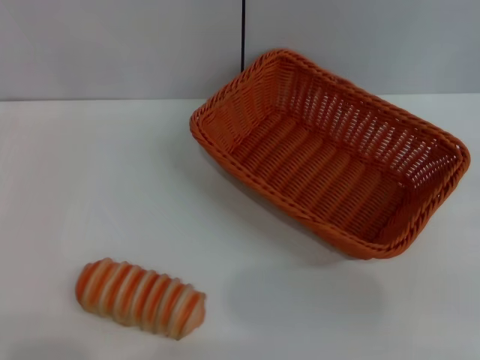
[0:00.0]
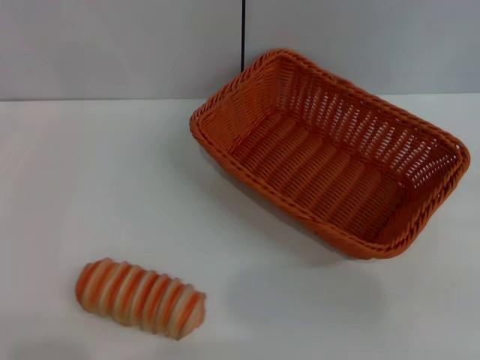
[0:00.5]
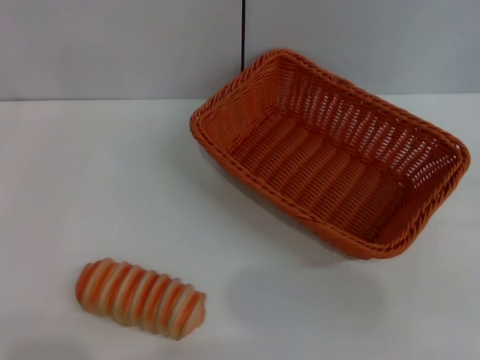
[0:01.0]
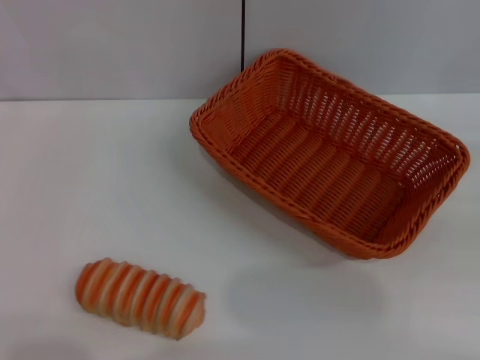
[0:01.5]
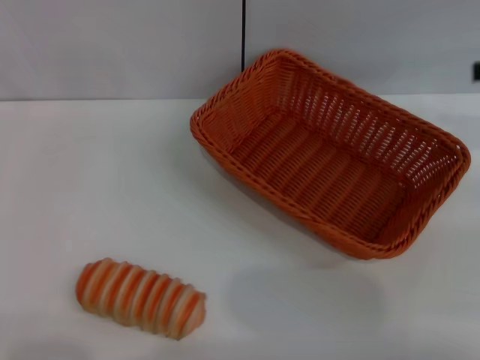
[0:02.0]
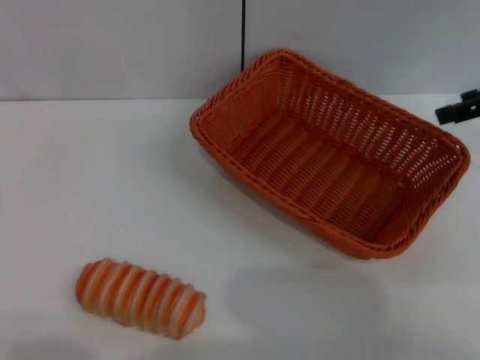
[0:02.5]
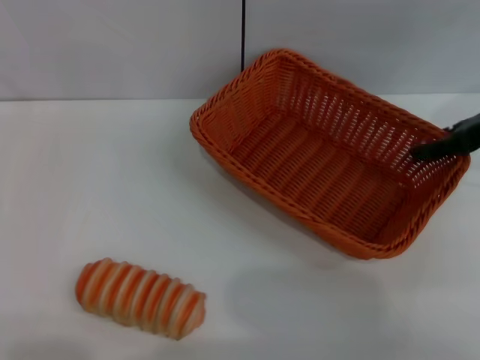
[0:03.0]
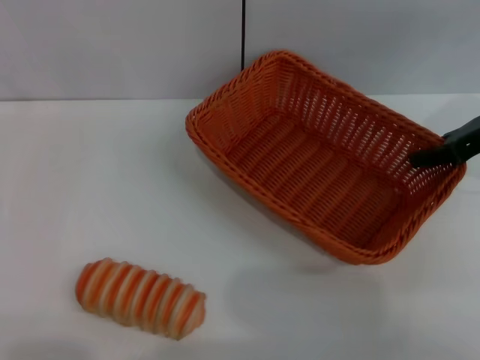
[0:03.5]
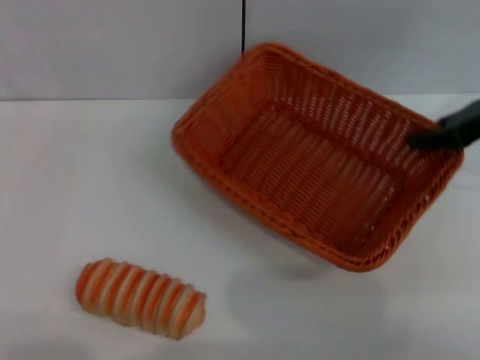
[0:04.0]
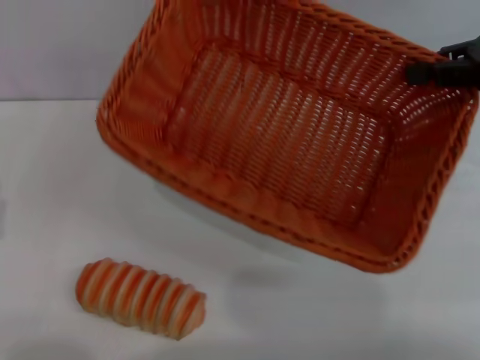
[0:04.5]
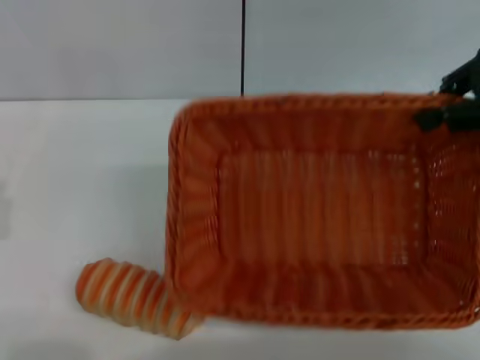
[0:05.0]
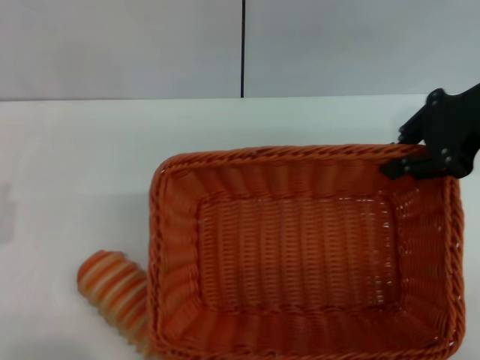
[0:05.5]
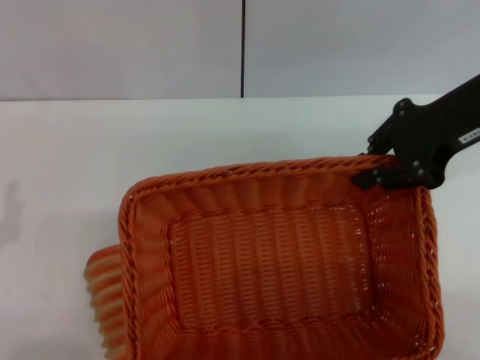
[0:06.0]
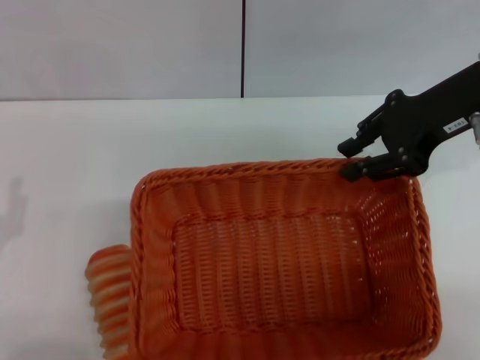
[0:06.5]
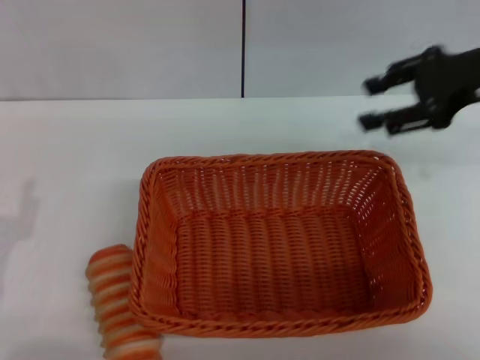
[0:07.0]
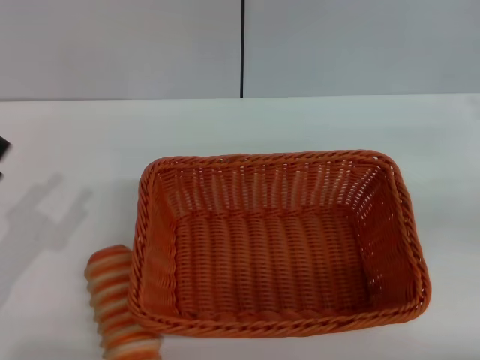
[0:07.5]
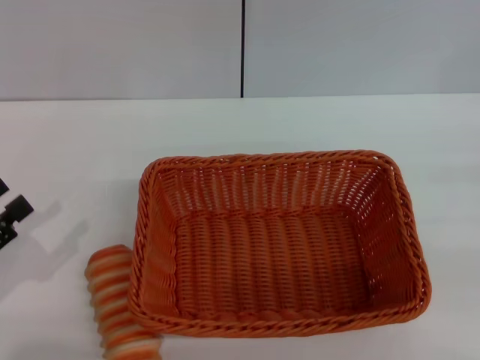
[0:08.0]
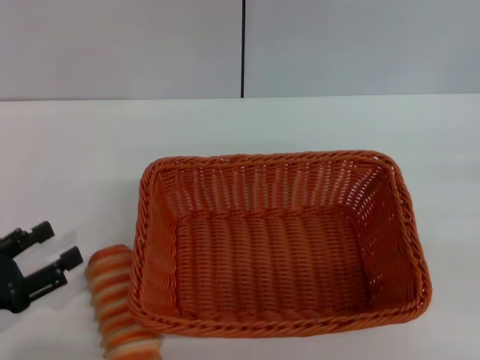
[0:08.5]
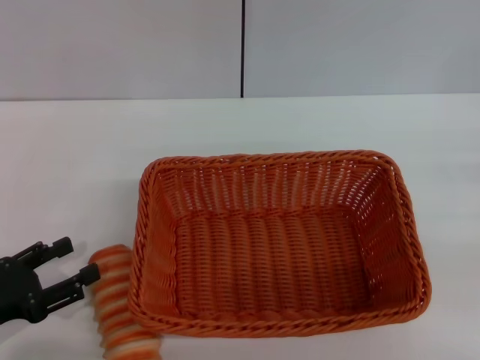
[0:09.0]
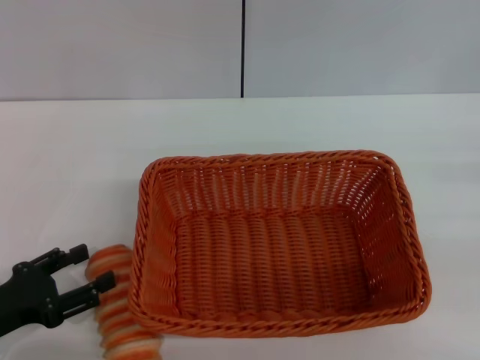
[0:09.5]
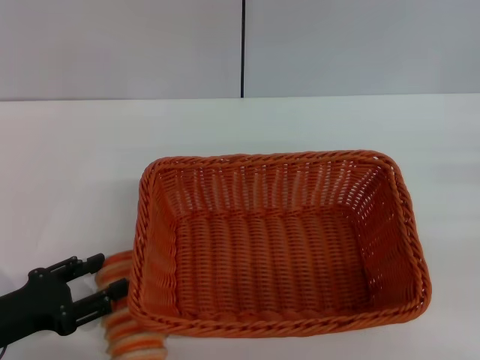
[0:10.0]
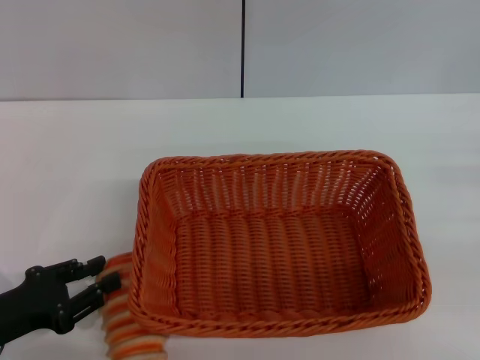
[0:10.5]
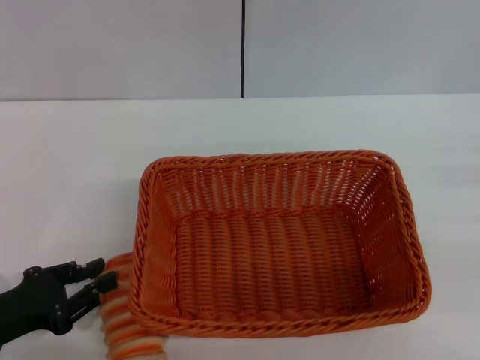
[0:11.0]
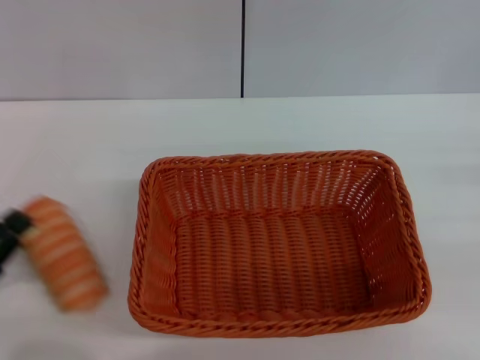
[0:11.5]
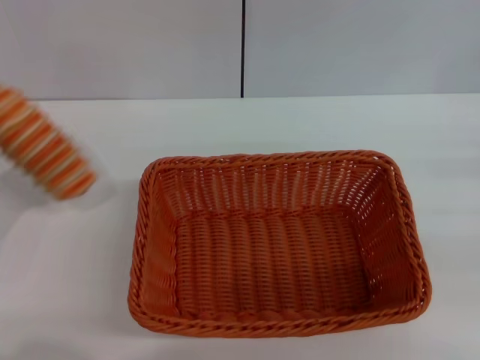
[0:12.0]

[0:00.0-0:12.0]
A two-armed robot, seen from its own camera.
Step, 0:00.0 to 0:04.0: Pick up the light basket with the right gripper.
Step, 0:04.5 to 0:06.5: Place the light basket in the center of view with the right gripper.
Step, 0:07.0 to 0:12.0: Pick up the long bread with the left gripper.
0:02.0 to 0:04.0: The right gripper shifts roughly 10 cm to the left and downward, and closes.
0:04.0 to 0:06.0: The right gripper goes about 5 cm to the left.
0:06.0 to 0:08.0: The left gripper moves to the left, approximately 5 cm; the right gripper heads to the right, backward and downward, covering some 25 cm, and opens its fingers.
0:08.0 to 0:10.0: The left gripper moves approximately 5 cm.
0:10.0 to 0:12.0: The left gripper moves some 5 cm, and closes up.

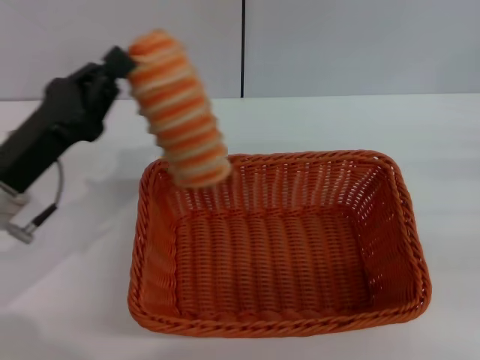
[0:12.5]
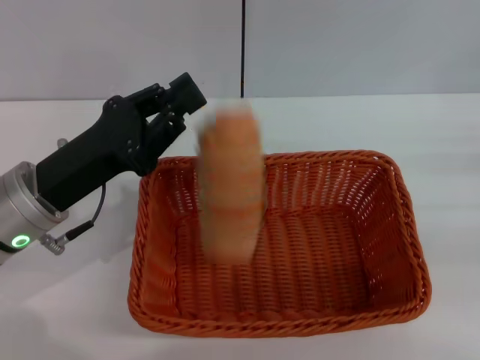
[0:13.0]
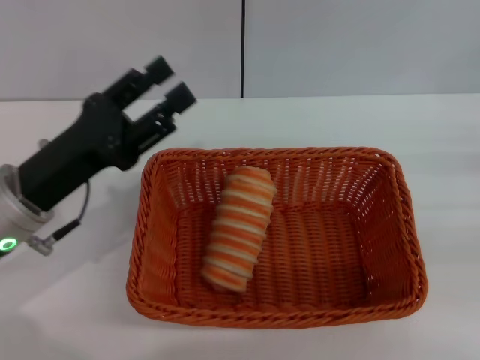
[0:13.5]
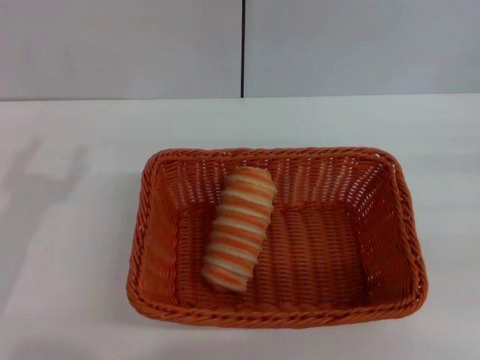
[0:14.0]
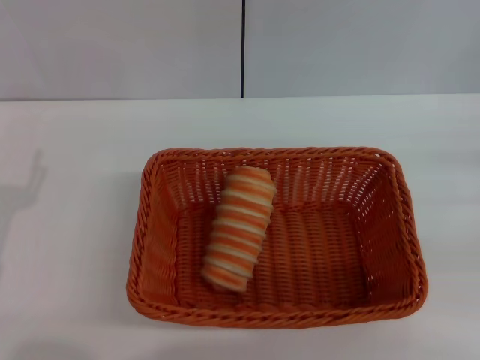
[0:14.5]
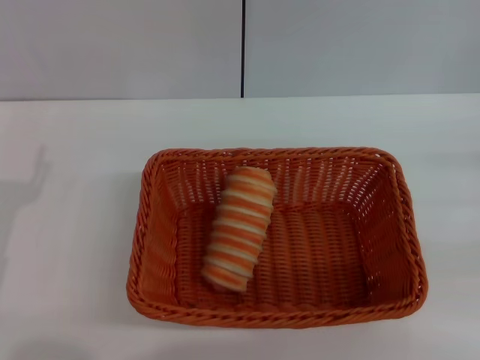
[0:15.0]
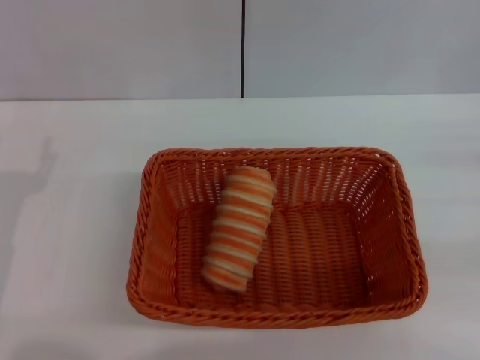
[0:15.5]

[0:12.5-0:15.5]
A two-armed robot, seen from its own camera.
0:12.5 to 0:14.0: The left gripper travels backward by approximately 5 cm, and opens.

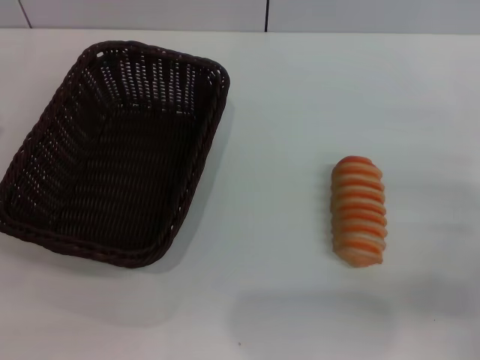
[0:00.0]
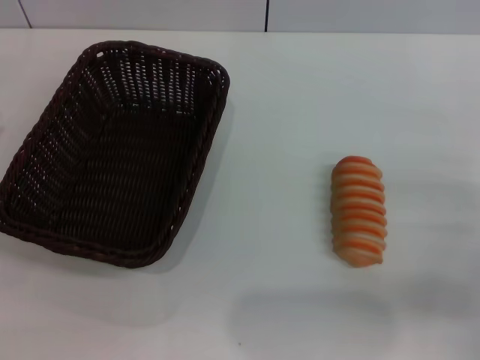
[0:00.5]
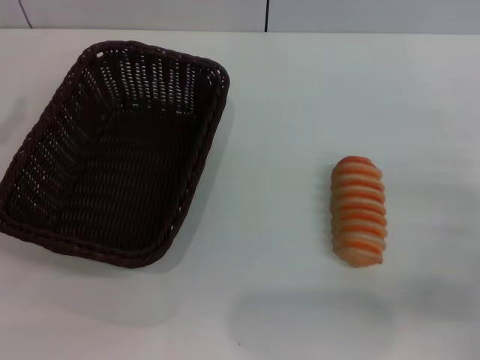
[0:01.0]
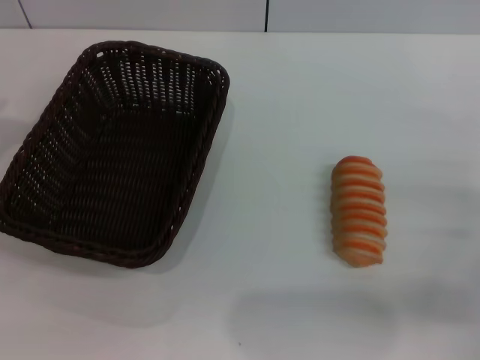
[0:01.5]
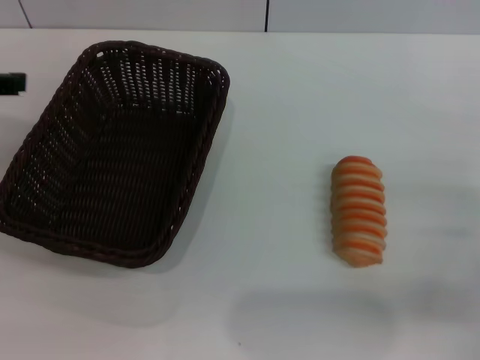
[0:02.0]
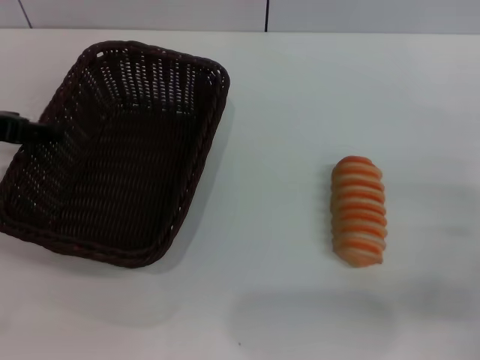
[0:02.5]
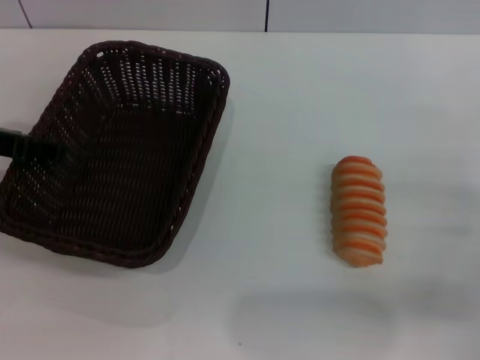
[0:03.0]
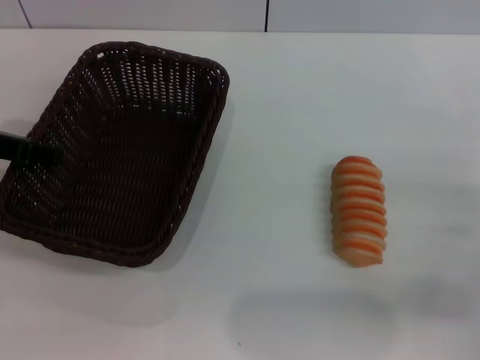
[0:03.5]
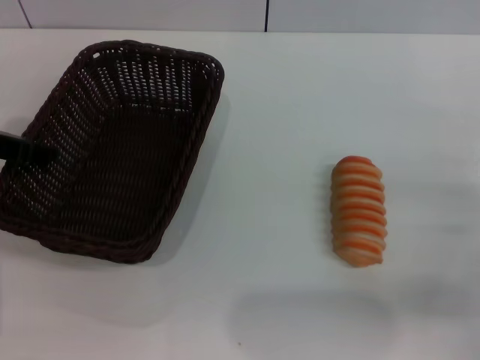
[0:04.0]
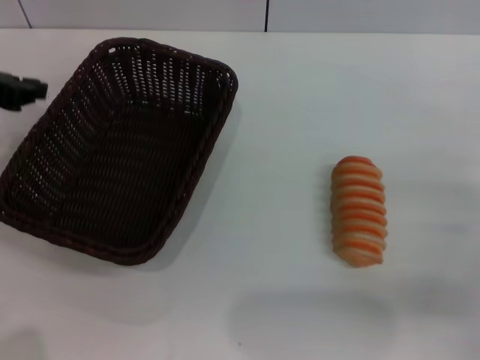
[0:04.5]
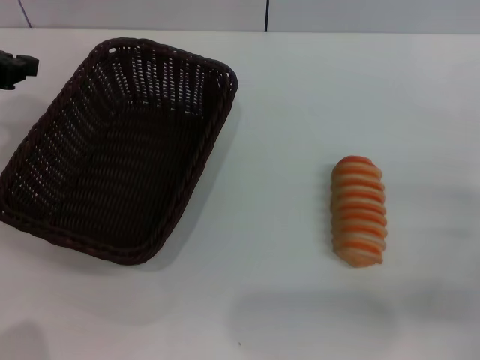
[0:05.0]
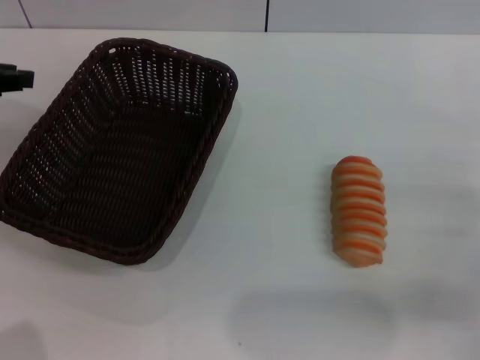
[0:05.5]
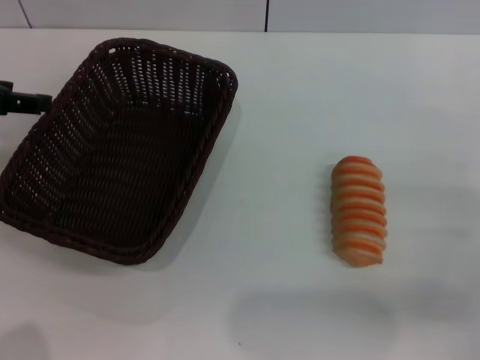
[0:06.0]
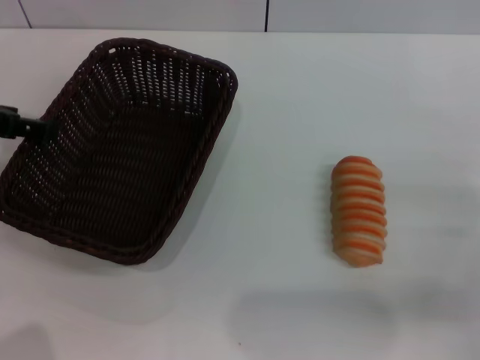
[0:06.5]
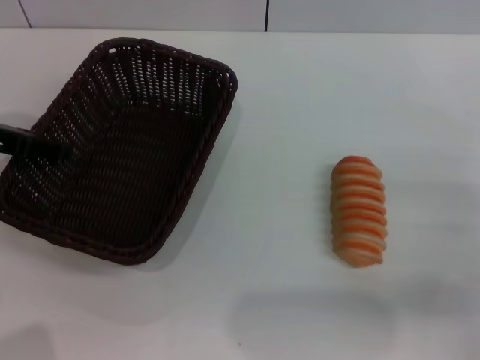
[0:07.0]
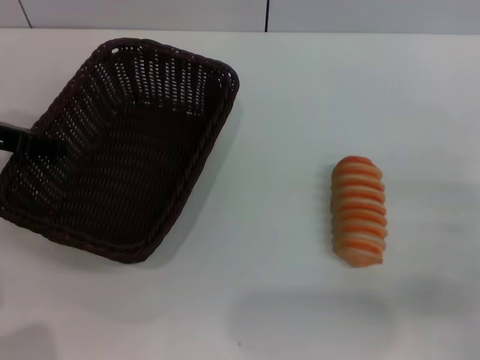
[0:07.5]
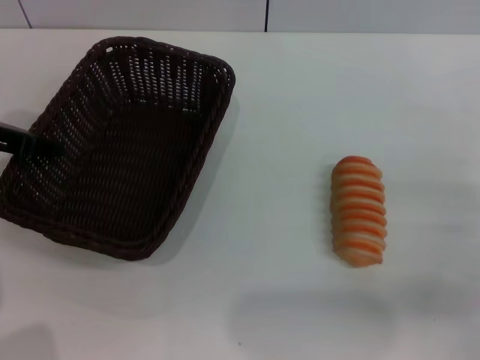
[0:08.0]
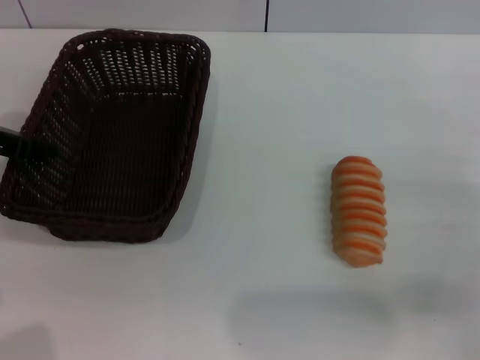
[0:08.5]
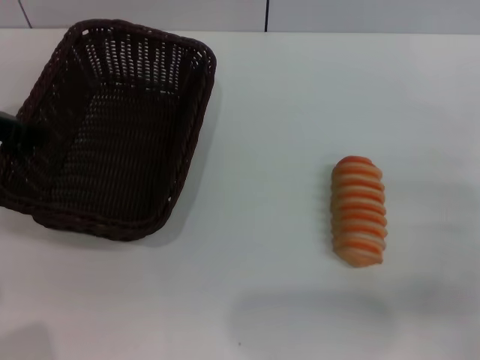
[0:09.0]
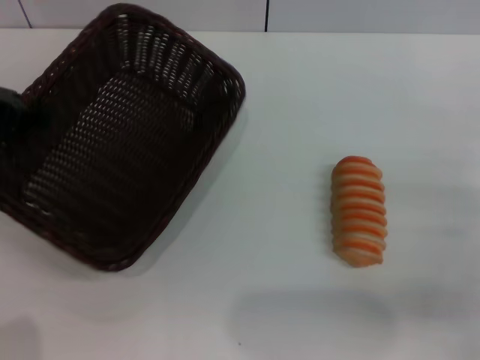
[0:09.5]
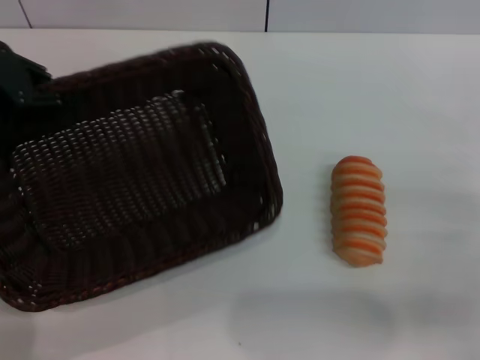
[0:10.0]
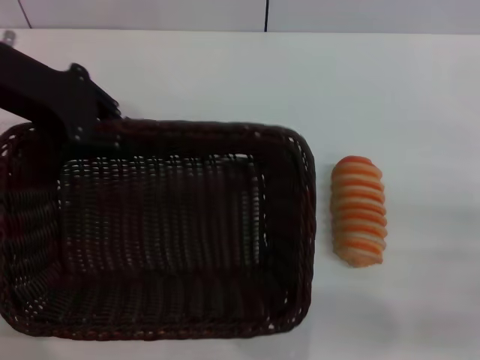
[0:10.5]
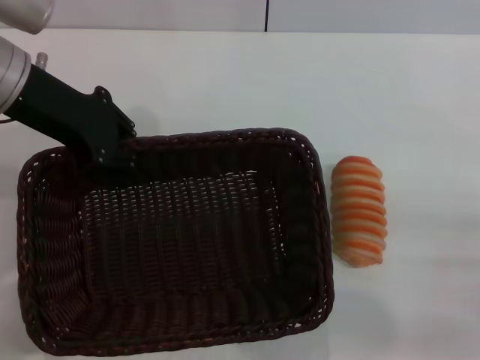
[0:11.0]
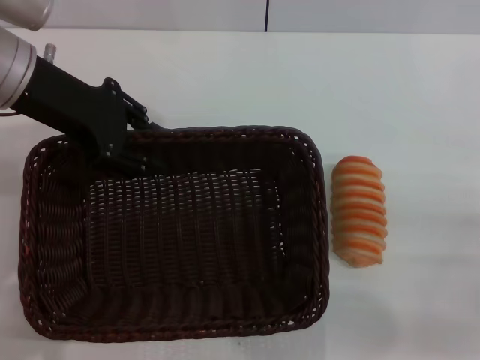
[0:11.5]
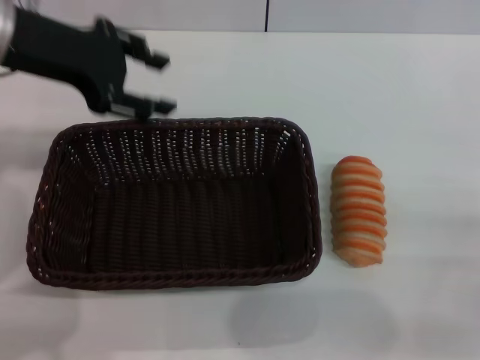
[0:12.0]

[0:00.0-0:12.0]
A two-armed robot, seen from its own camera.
Step, 0:00.0 to 0:10.0: Pick up the dark basket with the left gripper.
0:02.0 to 0:04.0: The left gripper is displaced downward by roughly 5 cm, and closes up.
0:04.0 to 0:06.0: The left gripper ends up roughly 5 cm from where it was, and closes and opens again.
0:06.0 to 0:08.0: The left gripper shifts by some 5 cm.
0:08.0 to 0:10.0: The left gripper travels upward by some 10 cm, and closes its fingers.
0:10.0 to 0:12.0: The left gripper is displaced to the right by some 5 cm, and opens its fingers.
